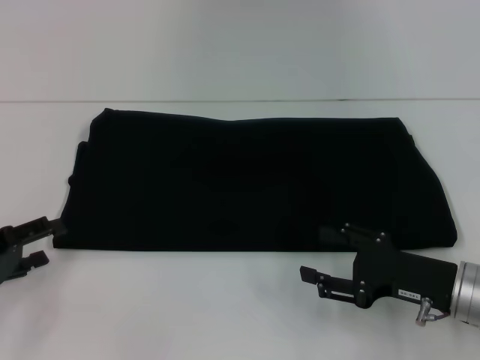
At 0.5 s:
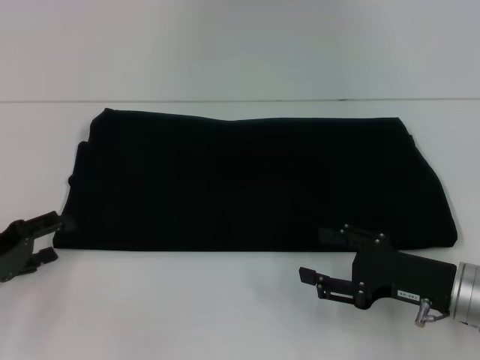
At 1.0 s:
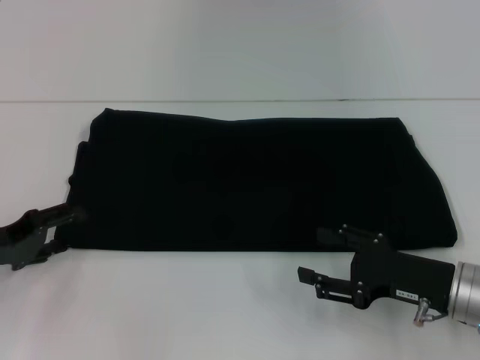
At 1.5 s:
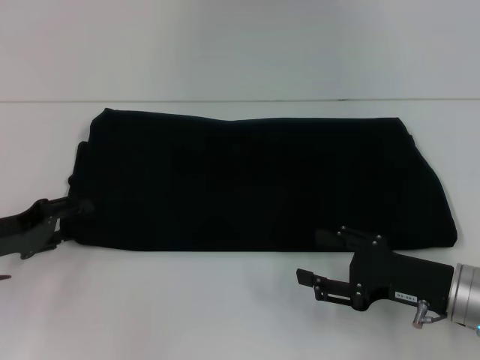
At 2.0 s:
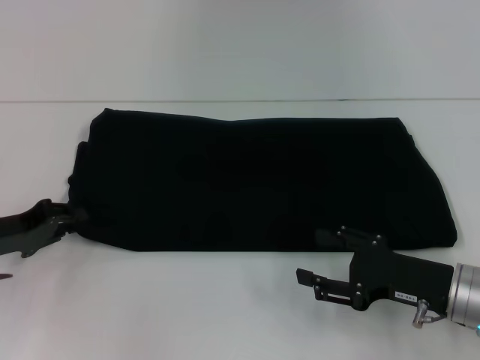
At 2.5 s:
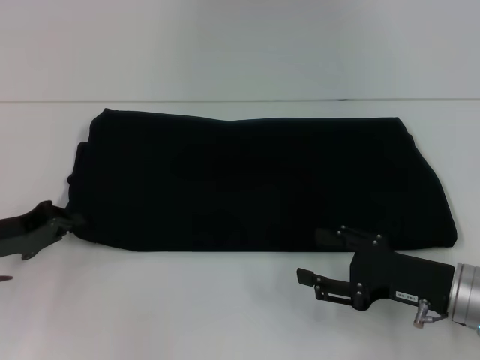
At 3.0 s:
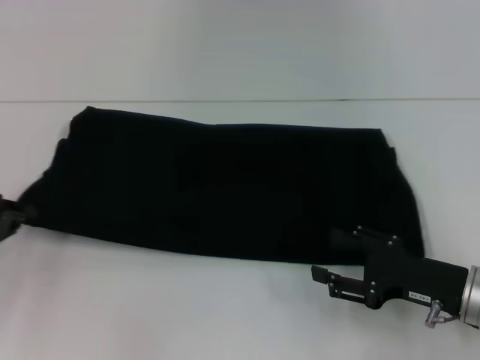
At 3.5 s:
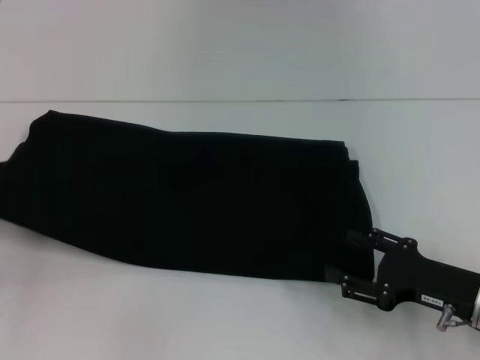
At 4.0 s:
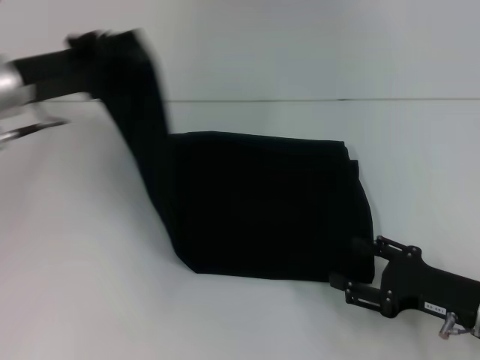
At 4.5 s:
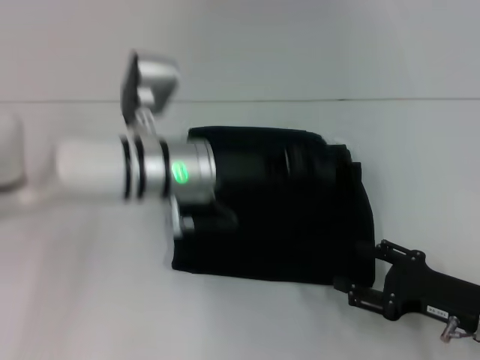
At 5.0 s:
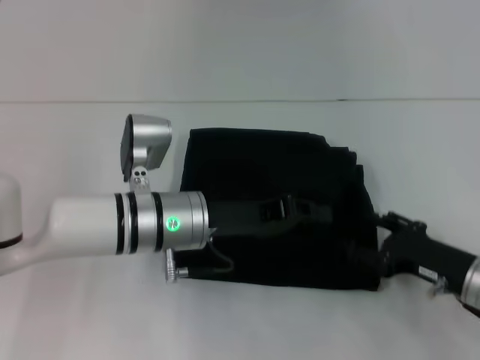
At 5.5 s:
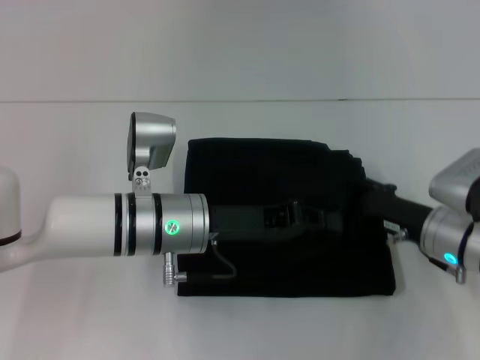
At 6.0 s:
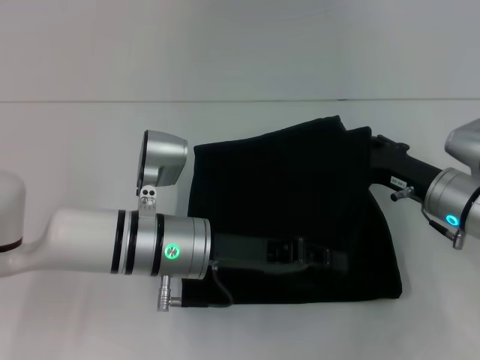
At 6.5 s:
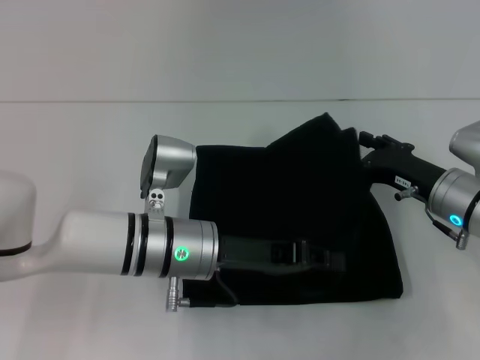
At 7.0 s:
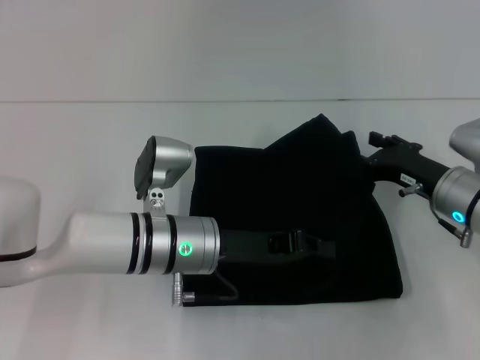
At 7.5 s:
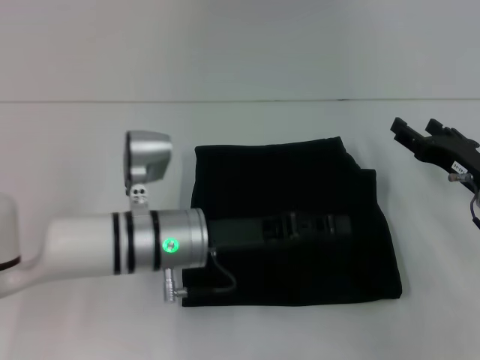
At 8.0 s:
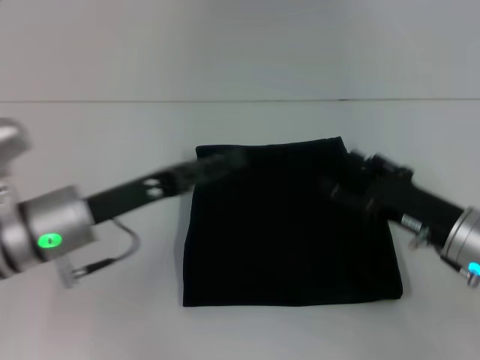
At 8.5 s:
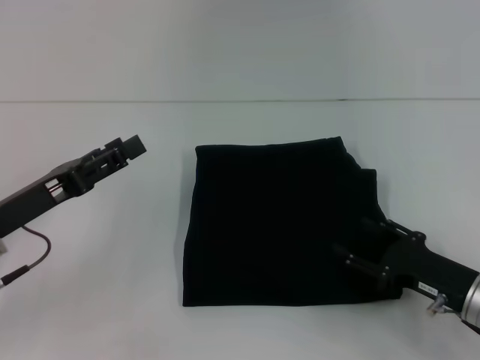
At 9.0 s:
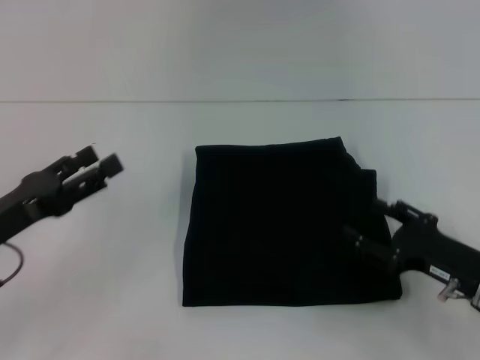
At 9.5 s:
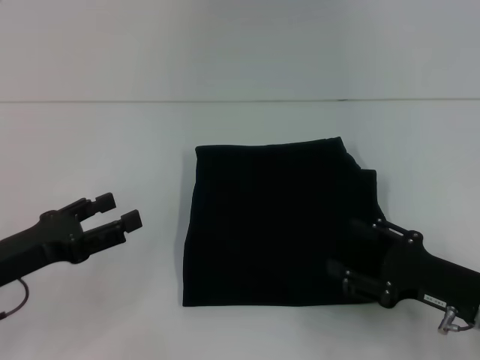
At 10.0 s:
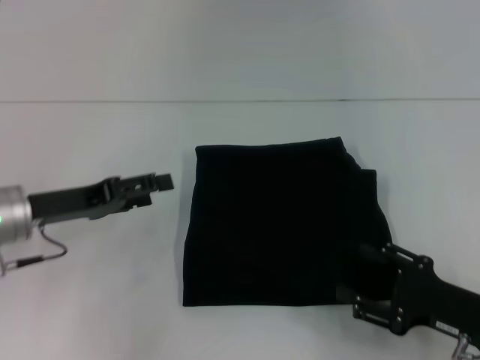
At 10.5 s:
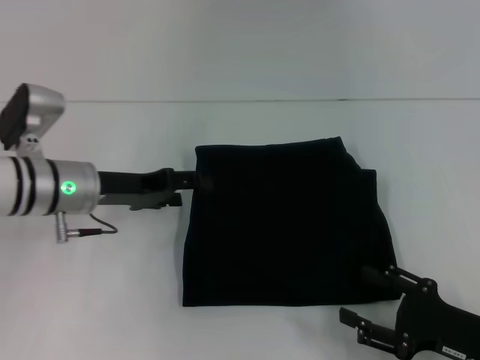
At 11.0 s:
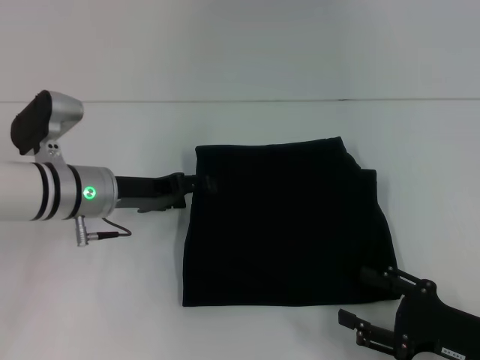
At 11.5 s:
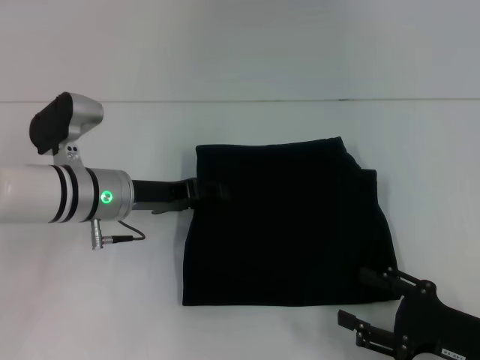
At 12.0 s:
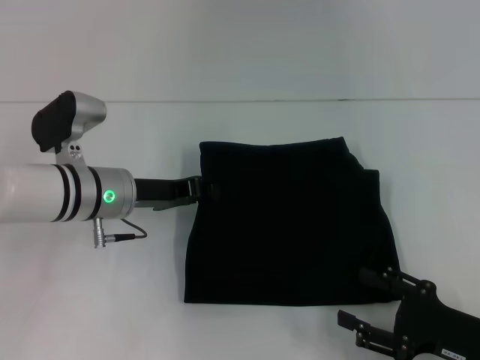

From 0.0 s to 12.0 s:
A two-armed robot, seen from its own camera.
Step, from 0.0 s to 7.0 s: Fold the clothes with your left hand.
From 0.0 s to 2.0 s: The left gripper moves approximately 5 cm, and closes up.
From 2.0 s to 4.0 s: The left gripper goes approximately 15 cm upward, forward and to the right, and closes up.
From 4.0 s to 6.0 s: The left gripper heads to the right, downward and backward, covering about 20 cm; the right gripper moves forward, about 10 cm.
From 6.0 s to 8.0 s: The right gripper moves backward, some 5 cm, while the left gripper is displaced to the left by roughly 10 cm, and opens.
From 8.0 s to 10.0 s: The left gripper goes some 5 cm to the left. Meanwhile the right gripper moves backward, roughly 10 cm.
From 10.0 s to 12.0 s: The left gripper shifts some 10 cm to the right and forward, and closes its fingers.

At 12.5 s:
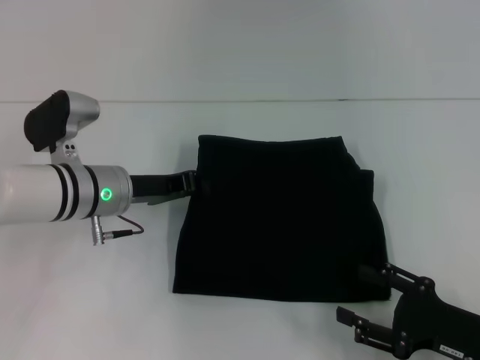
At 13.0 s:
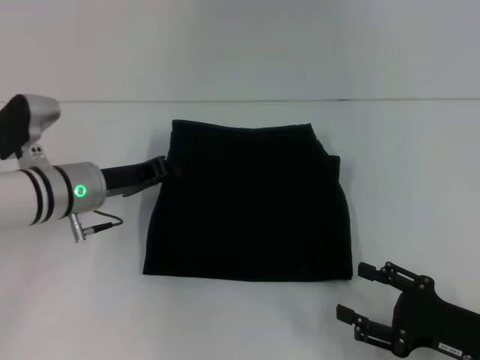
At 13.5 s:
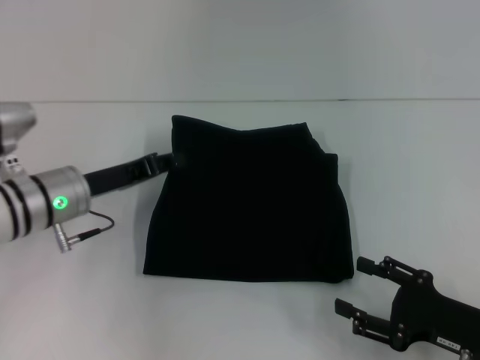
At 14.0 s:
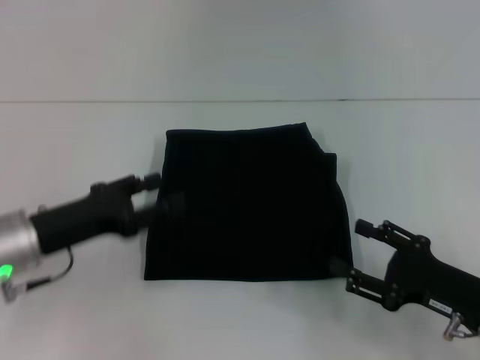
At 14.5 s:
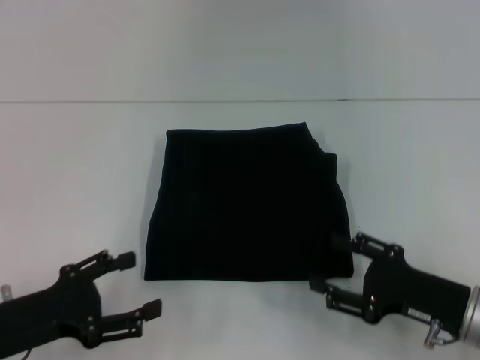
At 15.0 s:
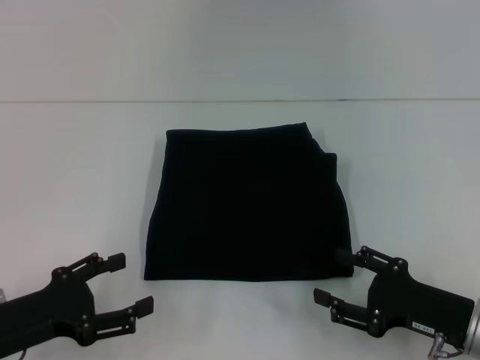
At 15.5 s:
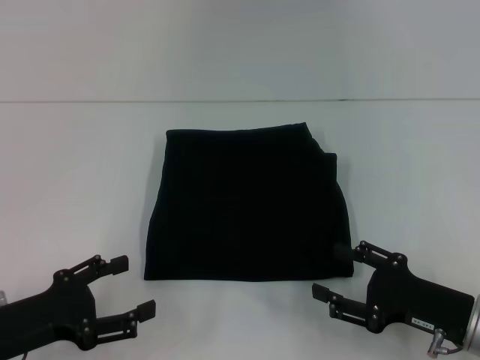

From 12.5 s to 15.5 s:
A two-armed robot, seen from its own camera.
From 12.5 s to 14.0 s: The left gripper travels backward and to the left by approximately 10 cm, and opens its fingers.
From 14.0 s to 15.5 s: The left gripper travels backward by roughly 10 cm, and opens.
